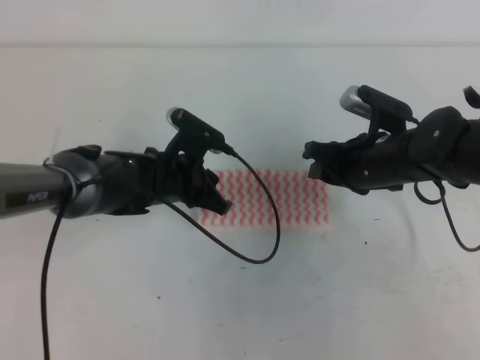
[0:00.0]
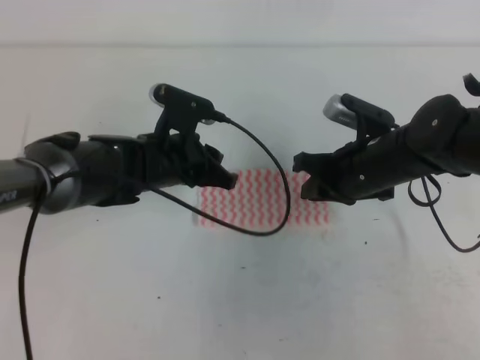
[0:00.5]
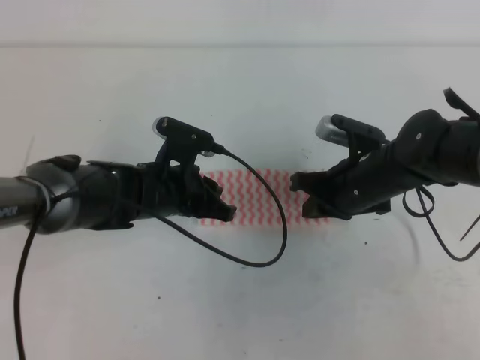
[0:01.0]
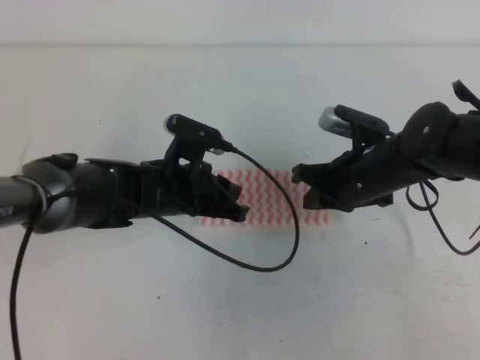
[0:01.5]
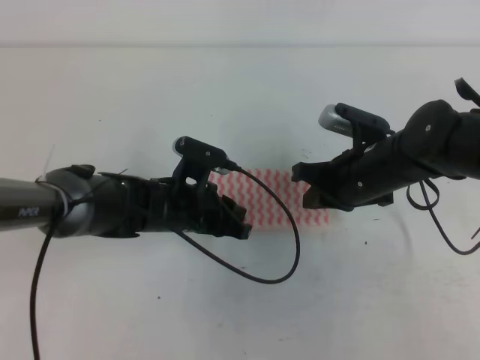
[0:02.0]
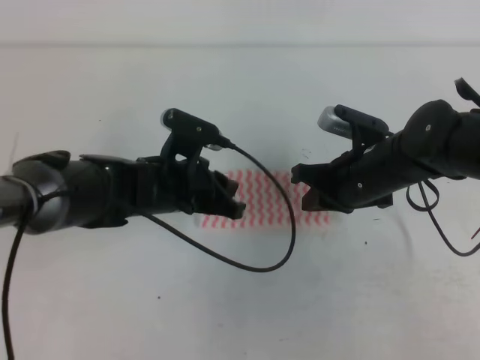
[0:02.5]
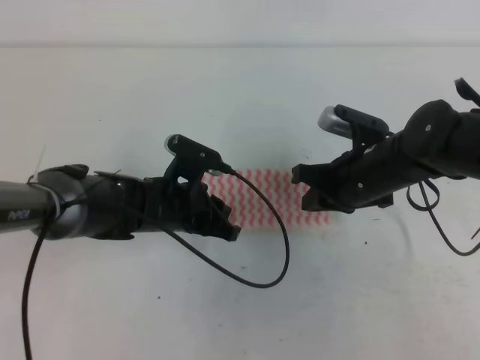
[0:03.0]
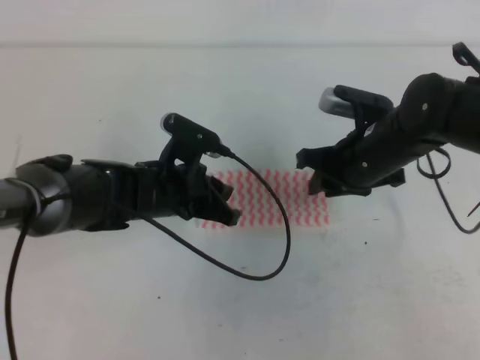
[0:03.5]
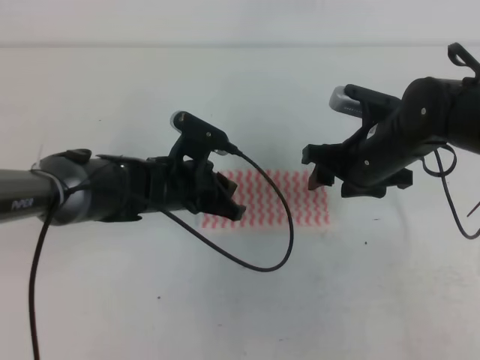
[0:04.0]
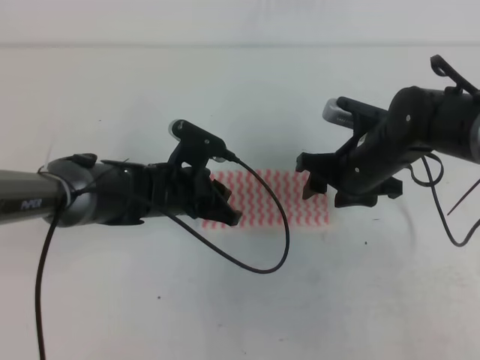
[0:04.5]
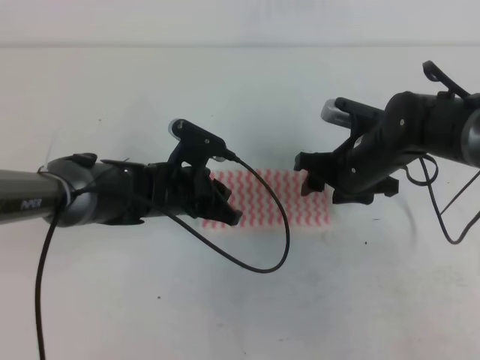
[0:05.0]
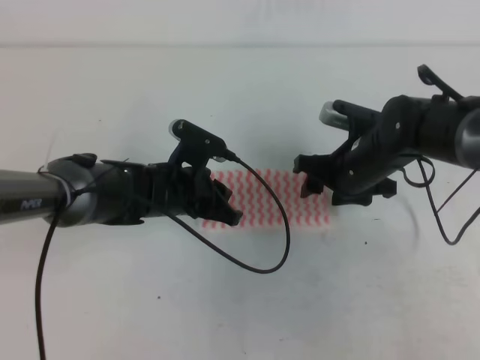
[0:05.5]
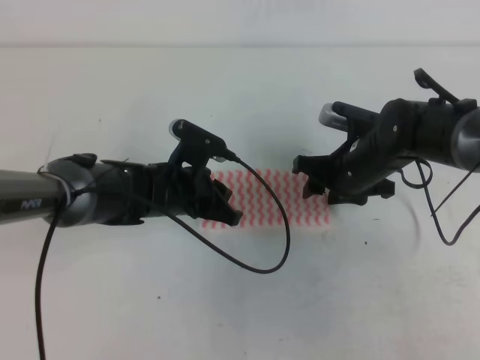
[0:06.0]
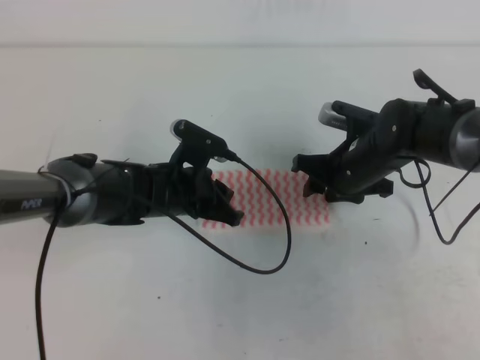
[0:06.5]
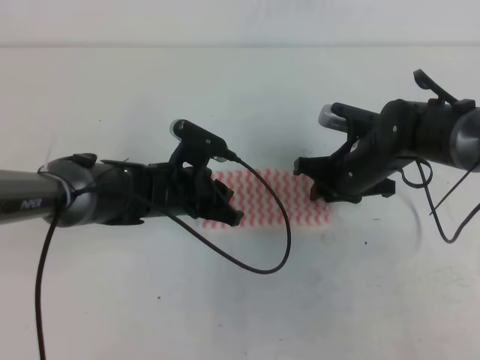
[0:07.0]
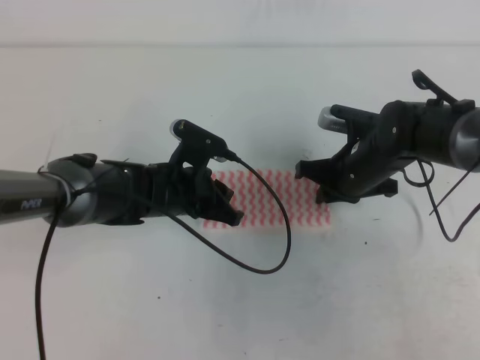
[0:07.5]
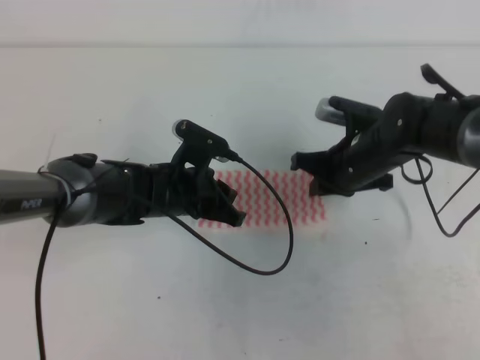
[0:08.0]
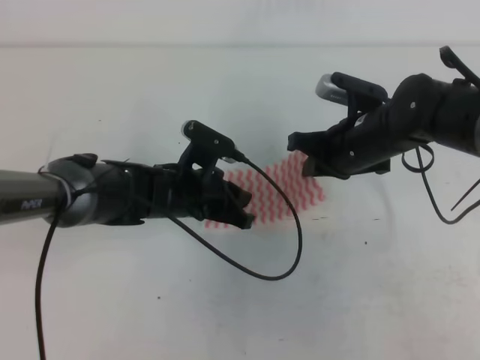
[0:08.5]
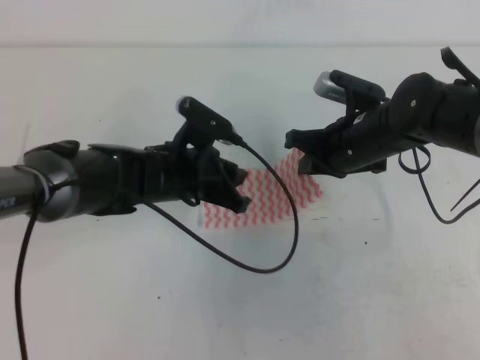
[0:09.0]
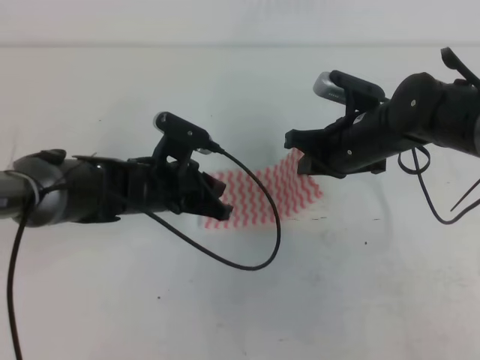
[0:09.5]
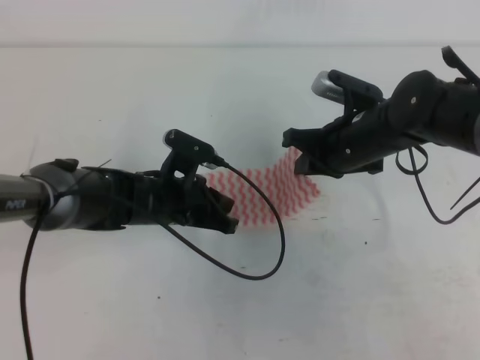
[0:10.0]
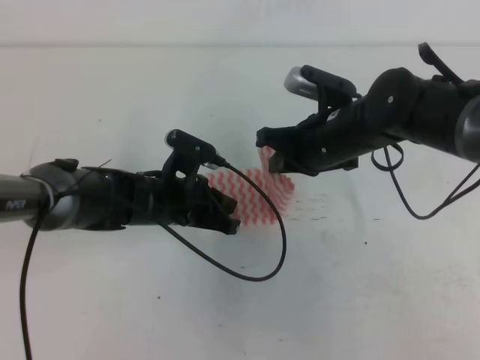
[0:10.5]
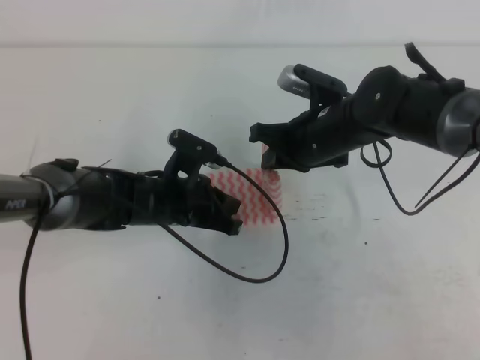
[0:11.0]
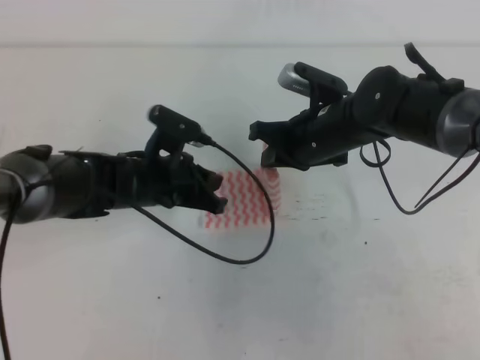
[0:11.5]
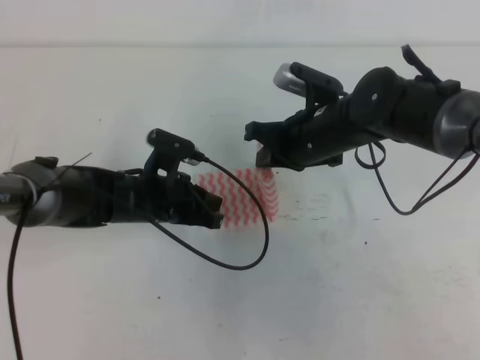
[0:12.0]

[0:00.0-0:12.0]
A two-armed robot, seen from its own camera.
0:00.0 to 0:02.0: The right gripper closes up.
0:02.0 to 0:04.0: The right gripper opens up.
0:04.0 to 0:06.0: The grippers move only a little.
0:06.0 to 0:08.0: The right gripper closes its fingers.
0:08.0 to 0:10.0: The grippers move only a little.
0:10.0 to 0:12.0: There are only small adjustments of the grippers.

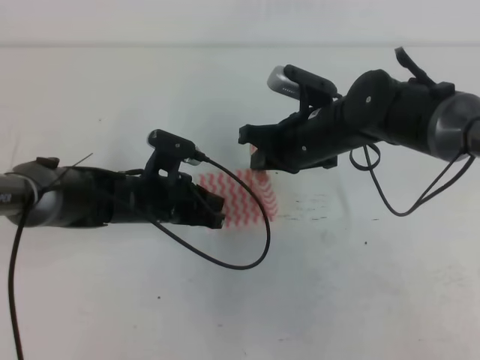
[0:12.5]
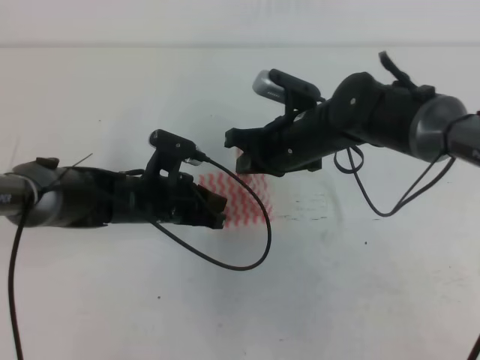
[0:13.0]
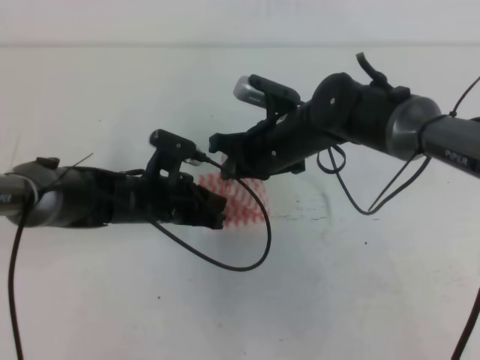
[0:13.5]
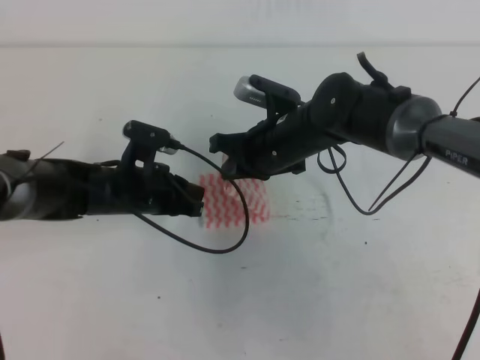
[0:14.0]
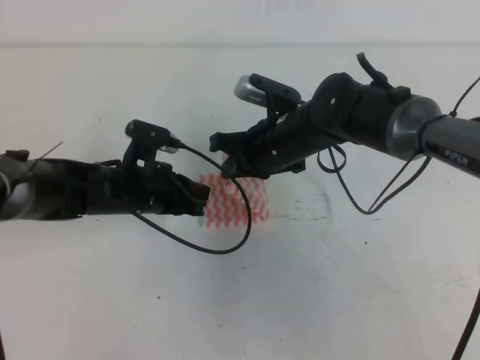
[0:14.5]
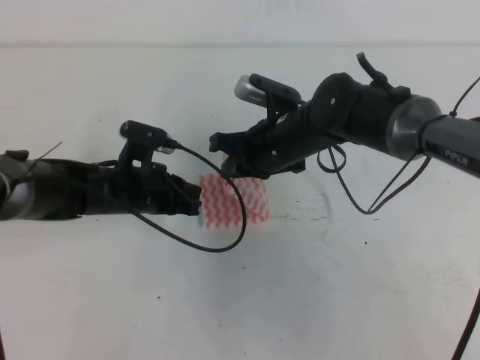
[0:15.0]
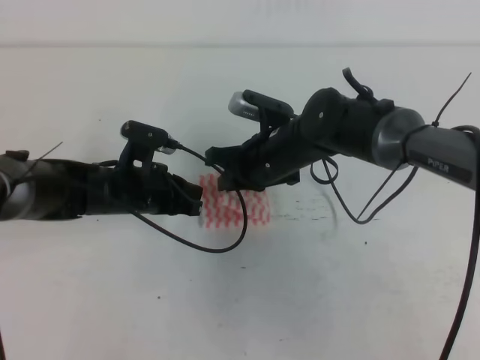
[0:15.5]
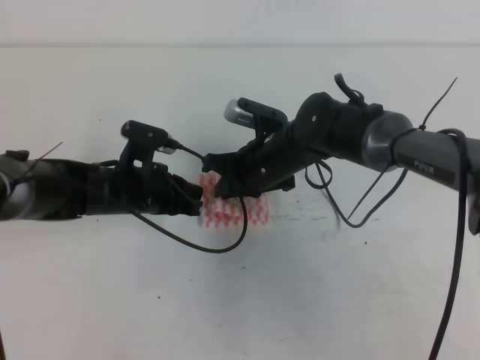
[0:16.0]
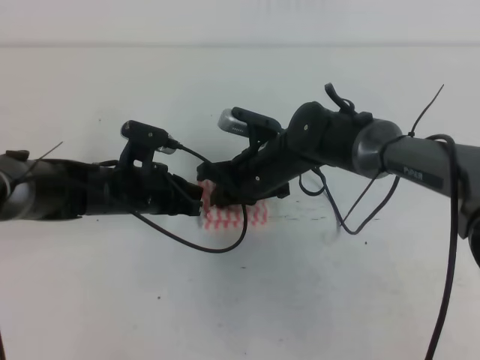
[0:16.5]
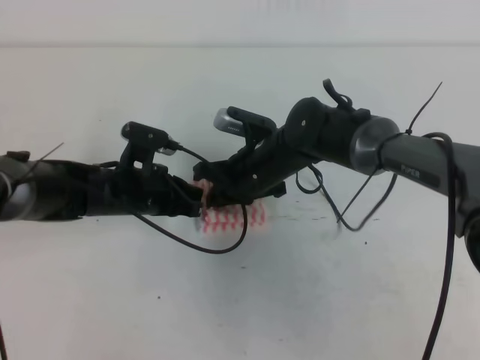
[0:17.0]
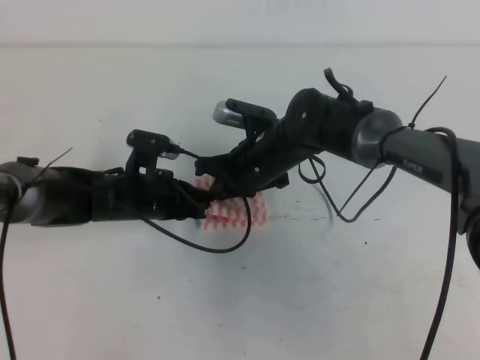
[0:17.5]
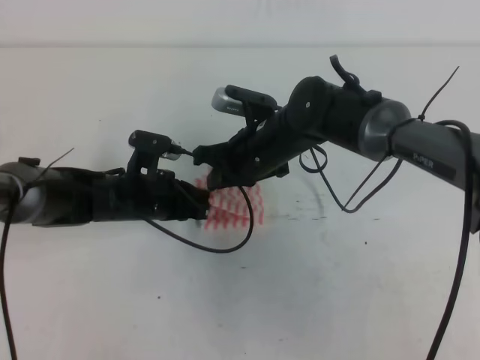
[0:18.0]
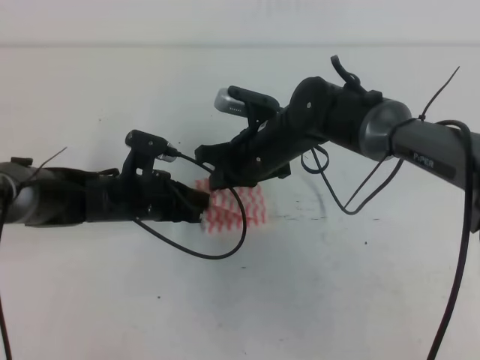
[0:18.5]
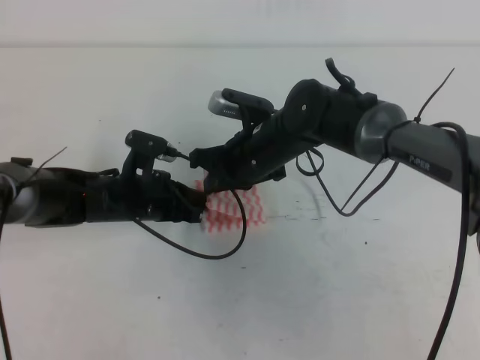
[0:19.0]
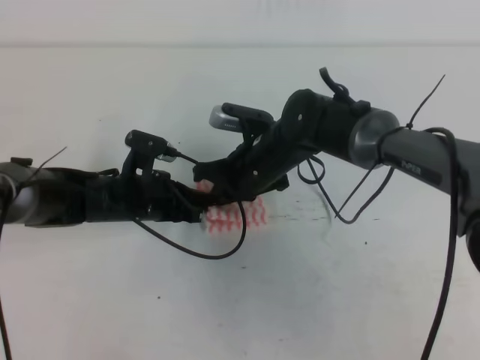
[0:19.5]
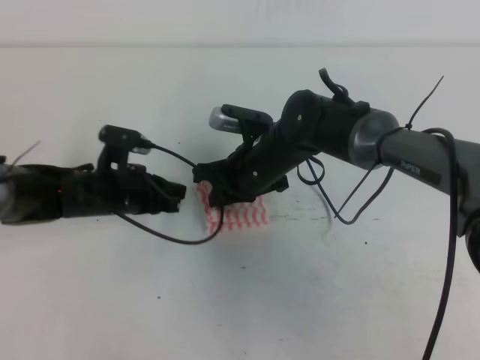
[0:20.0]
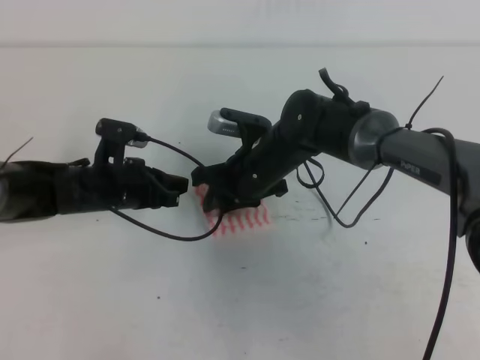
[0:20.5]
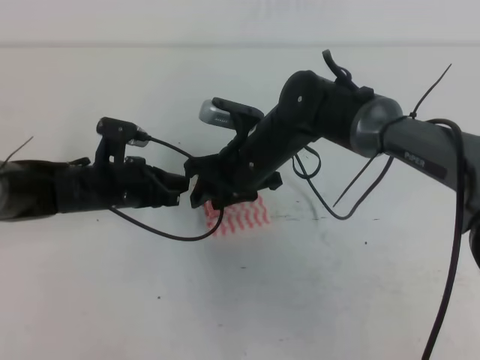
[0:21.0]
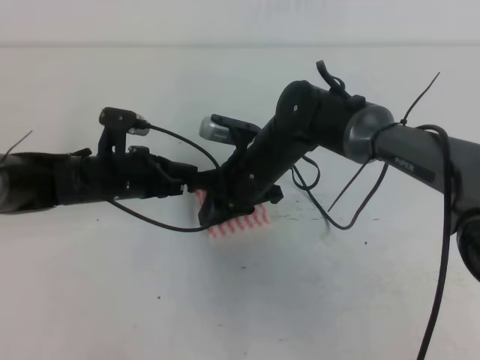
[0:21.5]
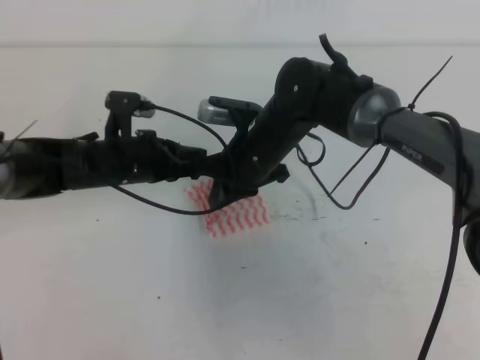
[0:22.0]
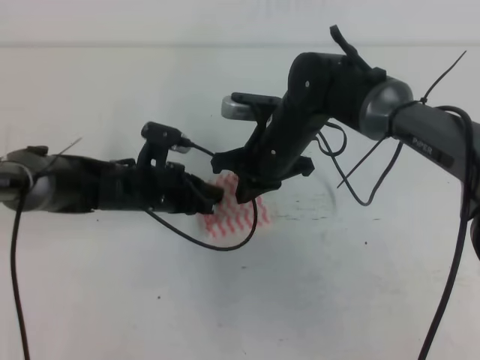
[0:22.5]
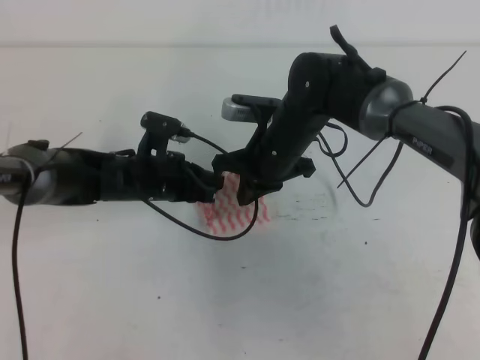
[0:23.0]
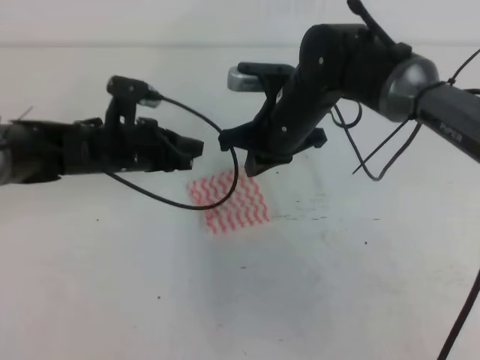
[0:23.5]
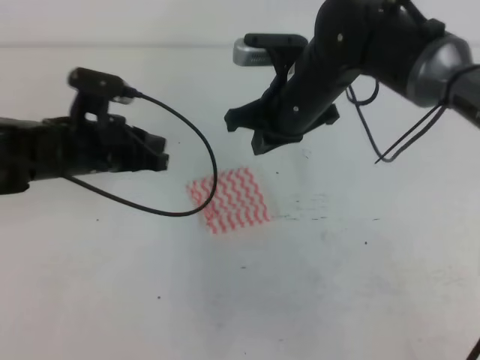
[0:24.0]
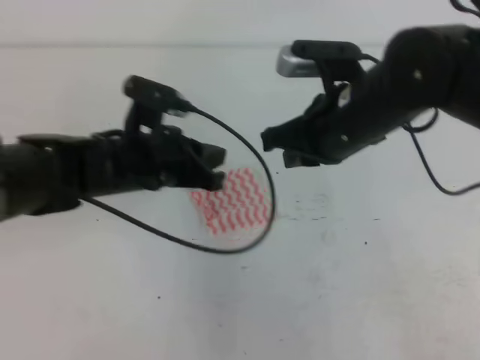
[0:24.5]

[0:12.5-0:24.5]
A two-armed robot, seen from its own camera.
0:12.5 to 0:14.5: The grippers move only a little.
0:14.5 to 0:16.5: The right gripper changes place by about 5 cm.
0:16.5 to 0:18.5: The grippers move only a little.
0:18.5 to 0:20.5: The right gripper opens its fingers.
0:20.5 to 0:22.5: The right gripper closes its fingers.
0:22.5 to 0:24.5: The right gripper heads upward, backward and to the right, covering approximately 15 cm, while the left gripper travels upward by some 10 cm.

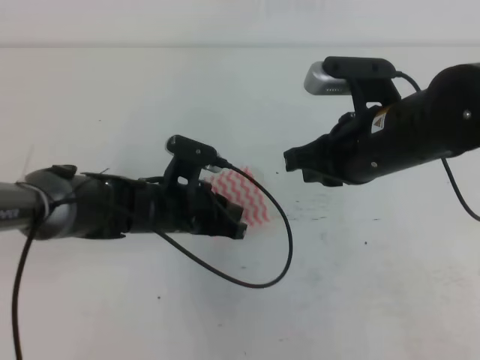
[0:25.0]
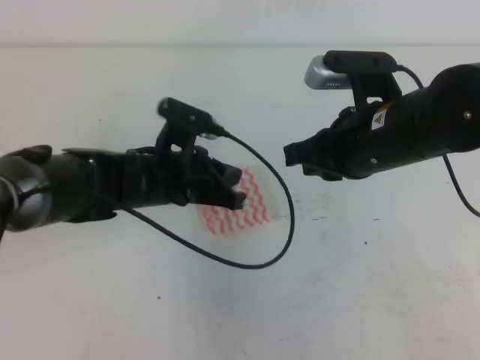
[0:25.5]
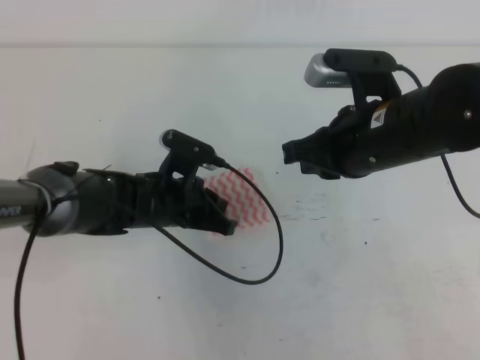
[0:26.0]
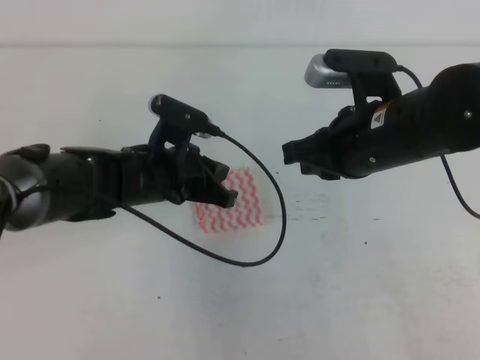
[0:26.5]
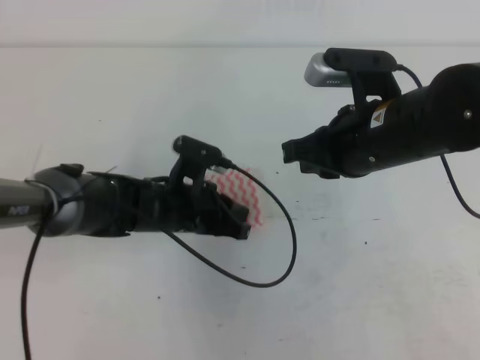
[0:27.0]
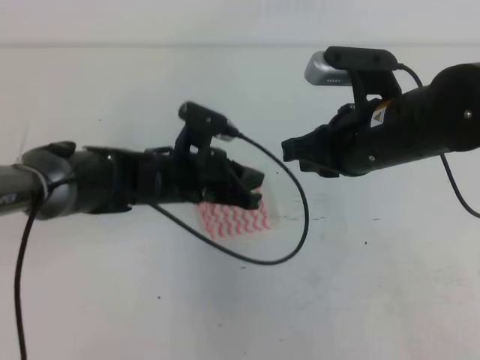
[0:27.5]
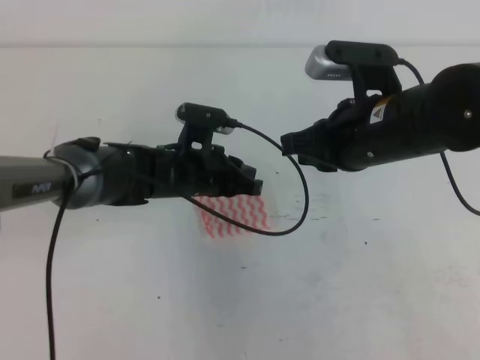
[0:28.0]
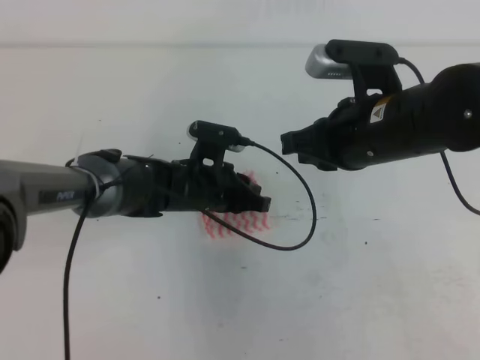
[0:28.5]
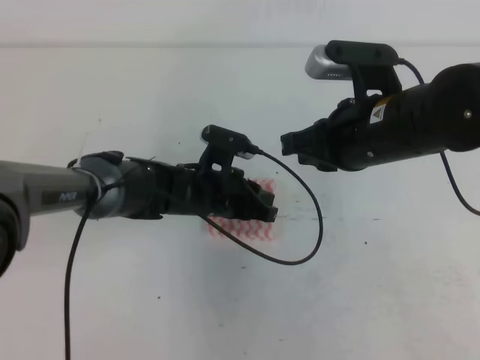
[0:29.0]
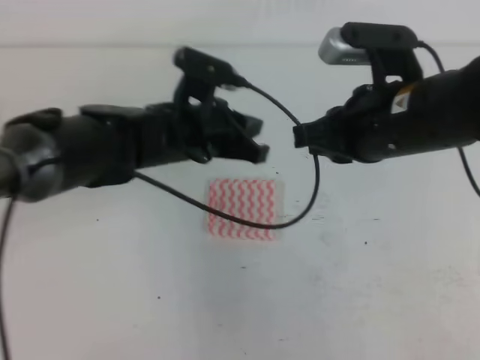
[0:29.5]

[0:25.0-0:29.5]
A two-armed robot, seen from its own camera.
0:25.0 to 0:27.0: There are only small adjustments of the grippers.
0:27.0 to 0:29.5: The left gripper moves upward, some 10 cm.
